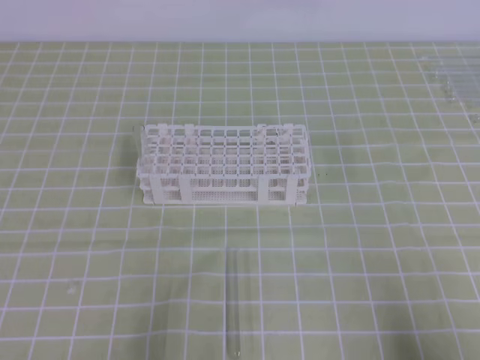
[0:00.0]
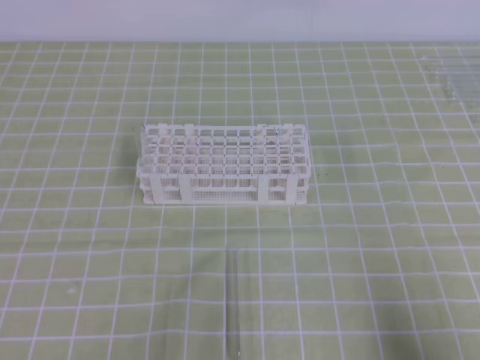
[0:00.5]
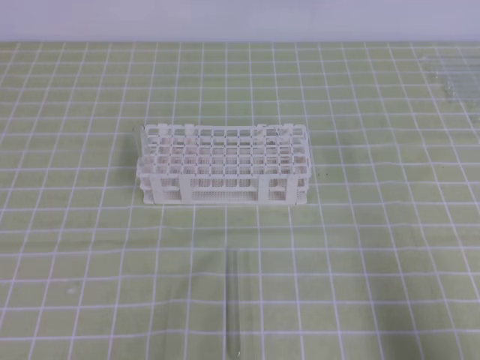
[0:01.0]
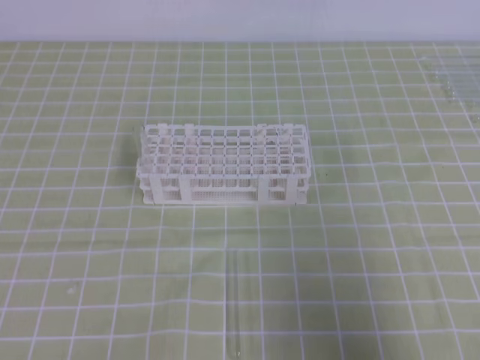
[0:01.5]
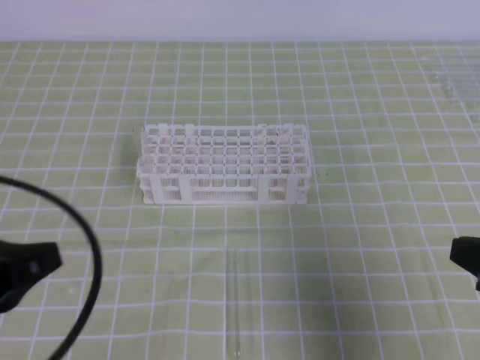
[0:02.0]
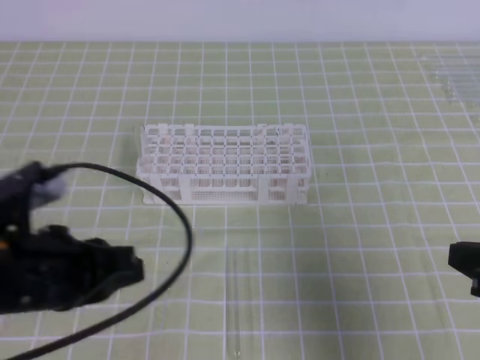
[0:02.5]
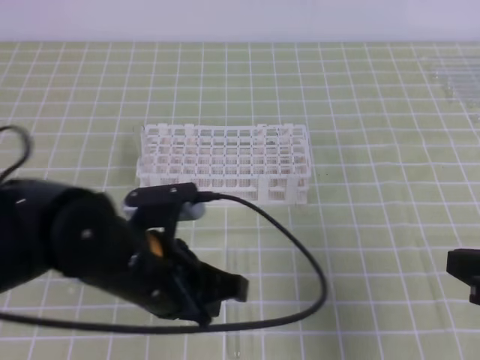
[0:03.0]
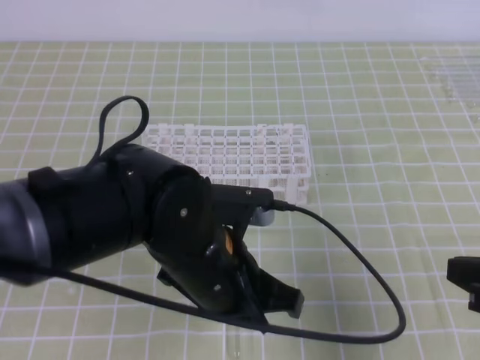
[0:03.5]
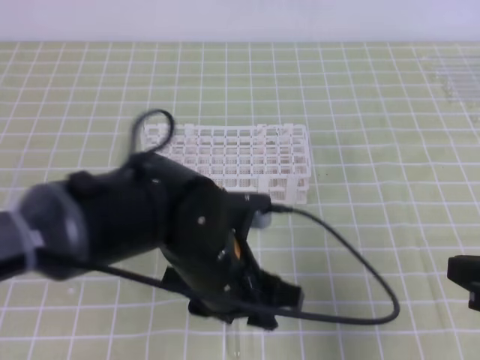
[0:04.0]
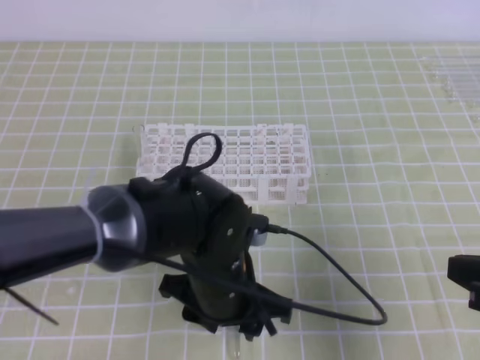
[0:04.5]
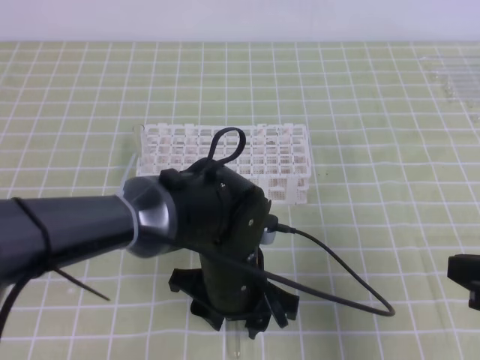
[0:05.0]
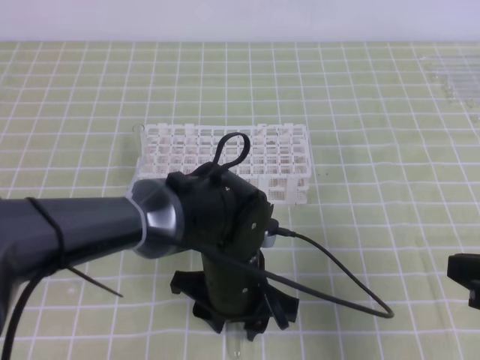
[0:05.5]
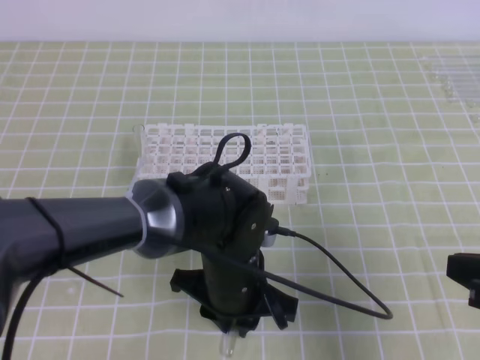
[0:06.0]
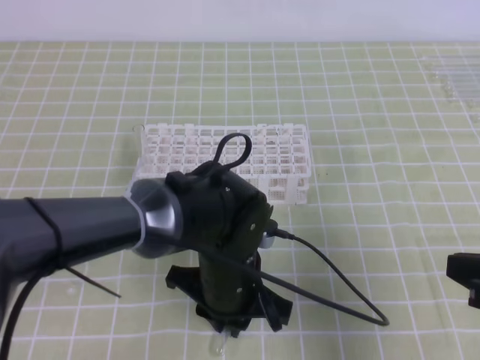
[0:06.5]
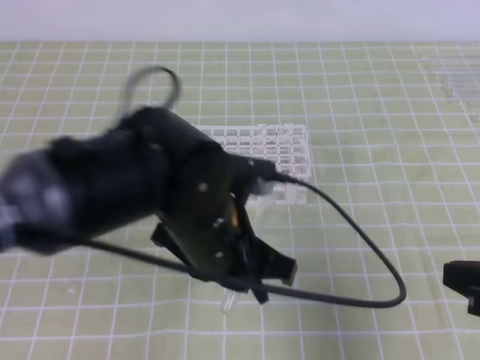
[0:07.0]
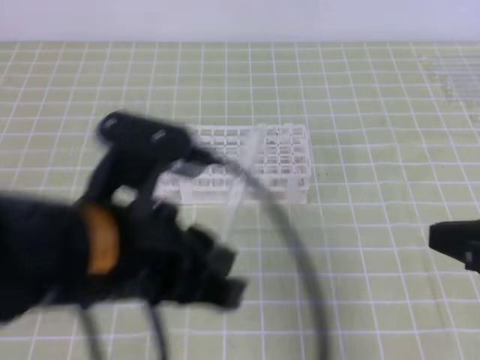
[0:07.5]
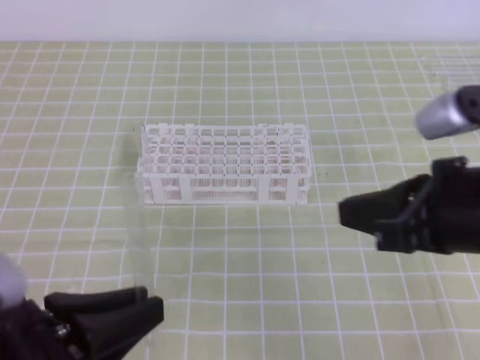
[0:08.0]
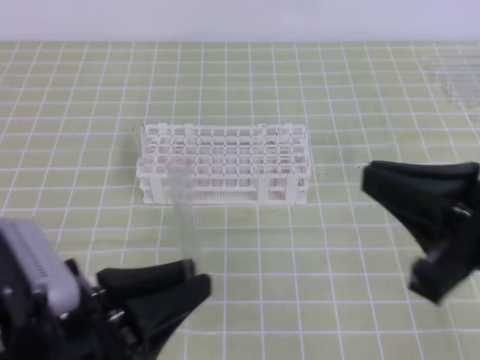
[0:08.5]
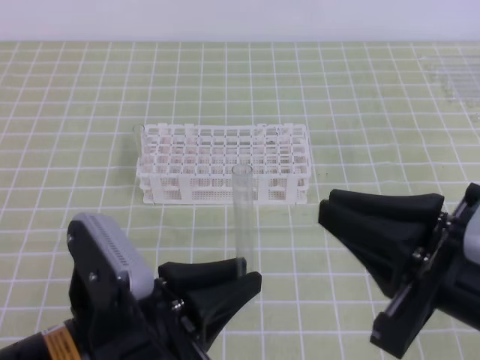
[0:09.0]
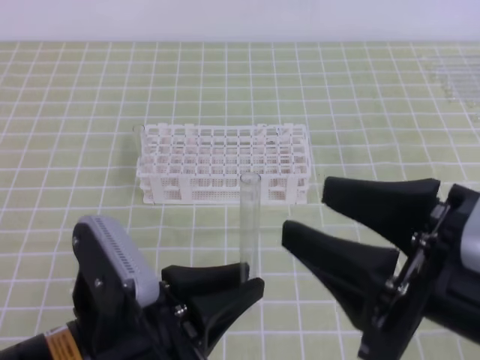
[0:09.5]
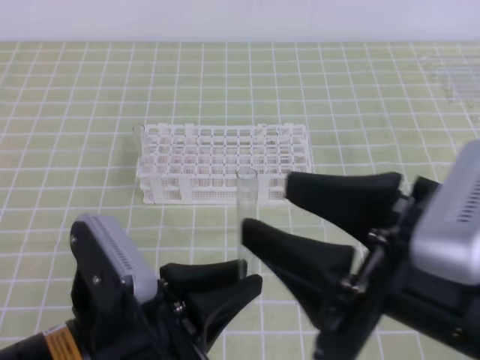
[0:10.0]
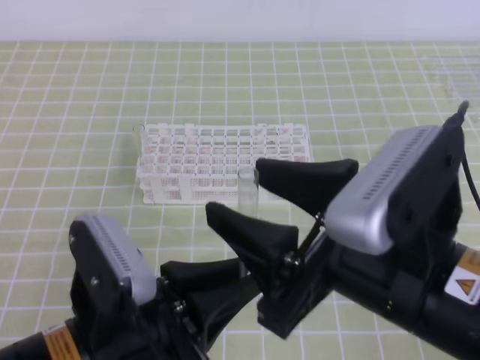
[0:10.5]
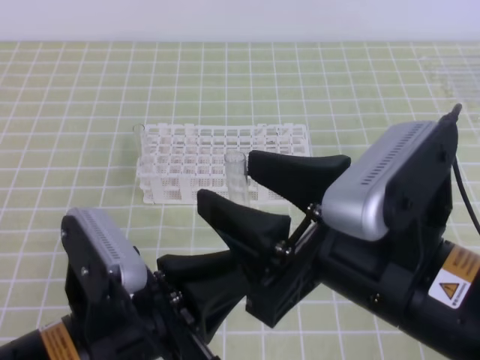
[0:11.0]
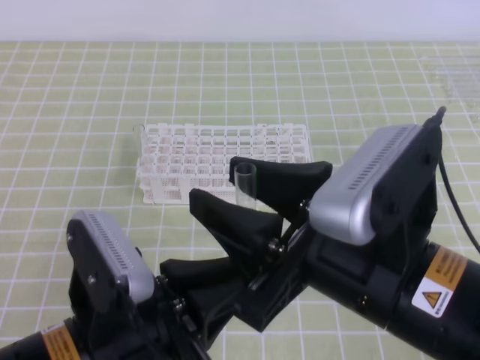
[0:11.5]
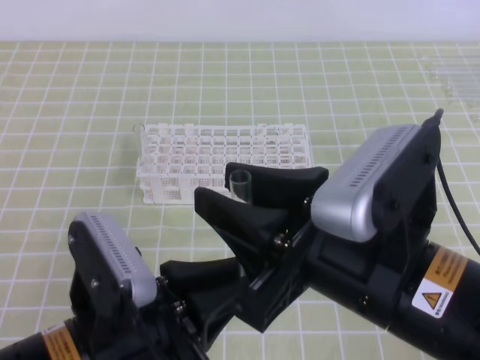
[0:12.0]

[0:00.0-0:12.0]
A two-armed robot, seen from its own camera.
0:00.0 to 0:02.0: The grippers both shift upward and forward by approximately 10 cm.
0:02.0 to 0:04.0: The left gripper travels to the right by some 20 cm, and opens up.
0:04.0 to 0:06.0: The left gripper goes roughly 5 cm downward, and closes.
0:06.0 to 0:08.0: The right gripper is displaced to the left and upward by approximately 10 cm, while the left gripper heads to the left, backward and upward, covering some 25 cm, and closes.
0:08.0 to 0:10.0: The right gripper heads backward and to the left, covering approximately 10 cm, and opens, while the left gripper goes approximately 5 cm to the right.
0:10.0 to 0:12.0: The right gripper closes.

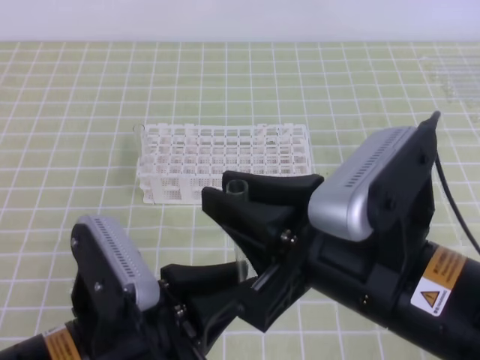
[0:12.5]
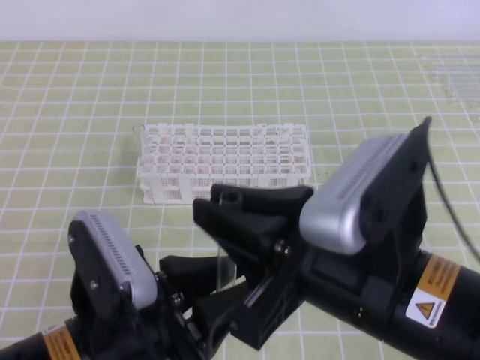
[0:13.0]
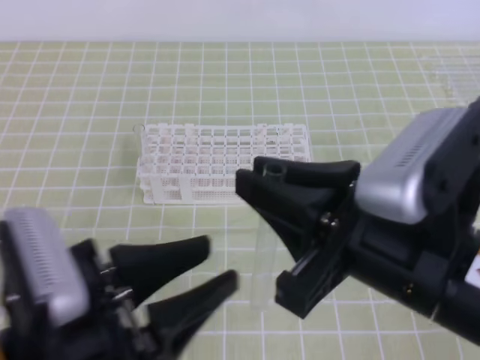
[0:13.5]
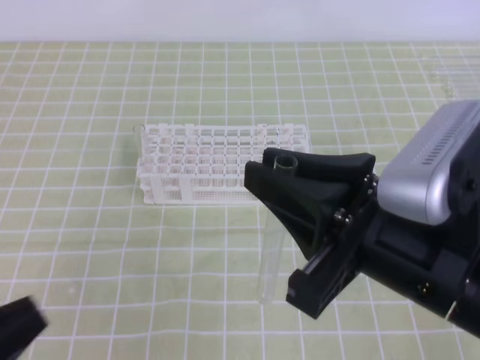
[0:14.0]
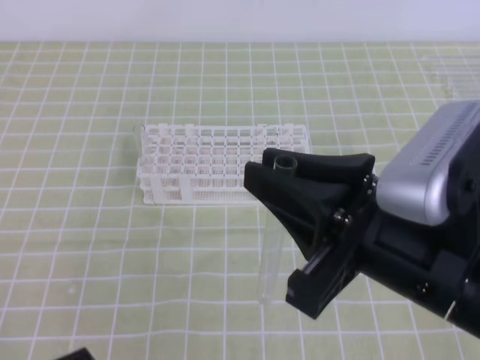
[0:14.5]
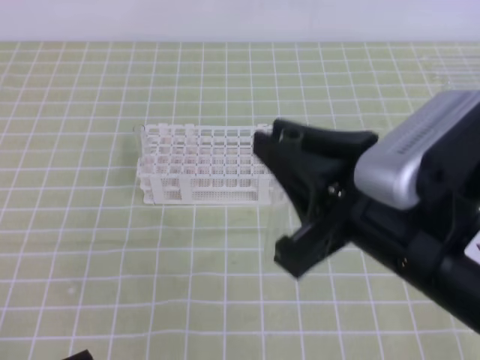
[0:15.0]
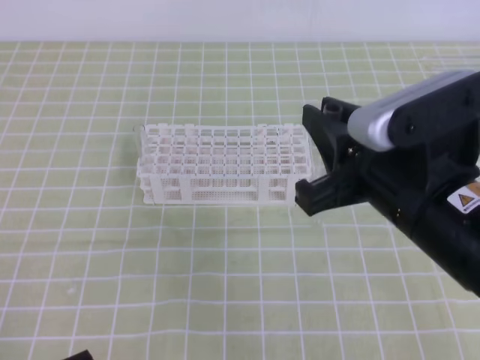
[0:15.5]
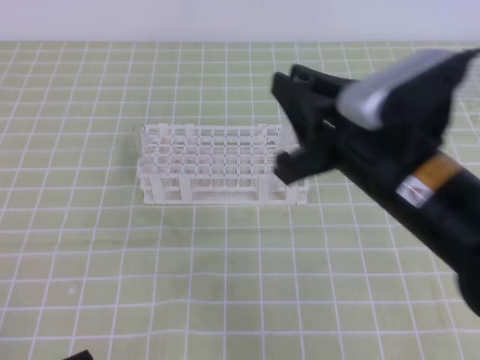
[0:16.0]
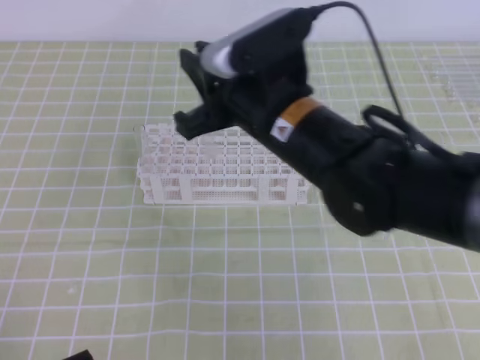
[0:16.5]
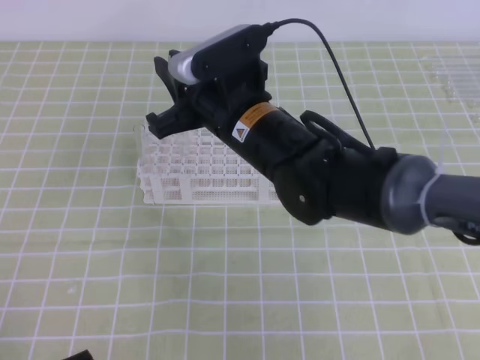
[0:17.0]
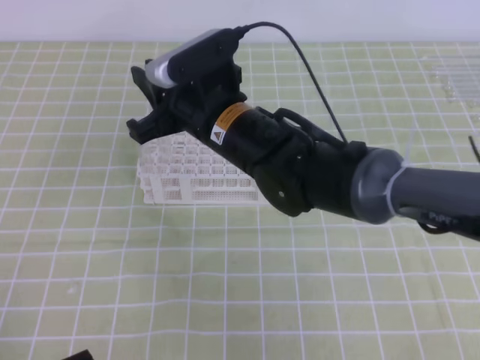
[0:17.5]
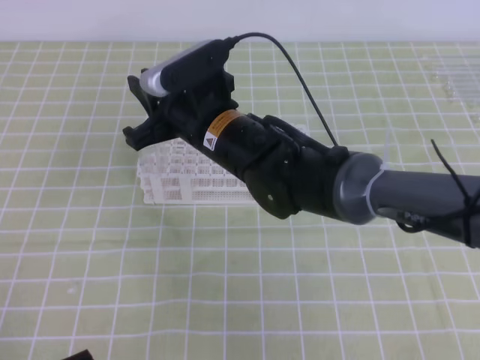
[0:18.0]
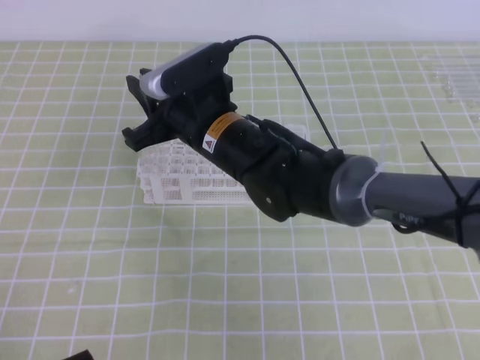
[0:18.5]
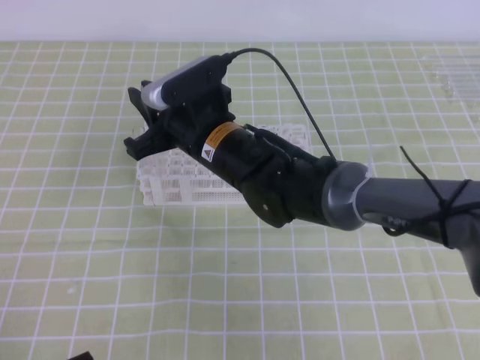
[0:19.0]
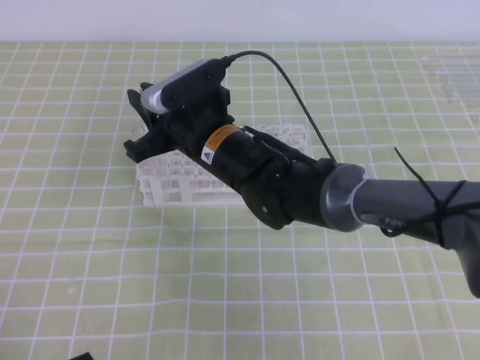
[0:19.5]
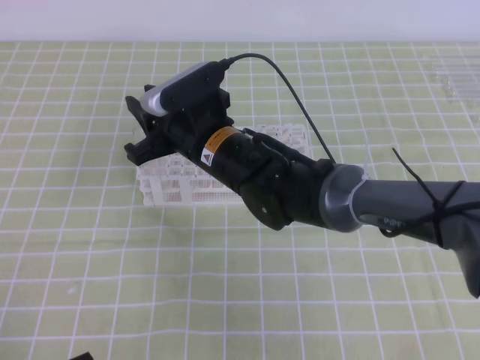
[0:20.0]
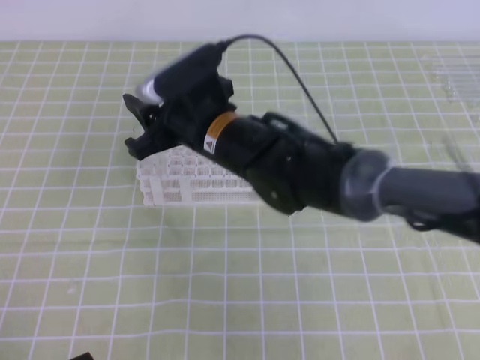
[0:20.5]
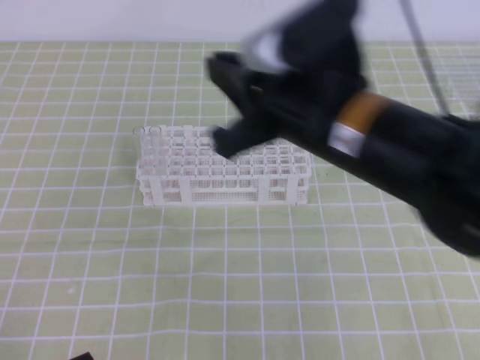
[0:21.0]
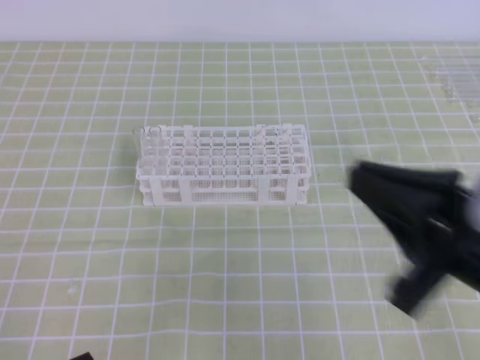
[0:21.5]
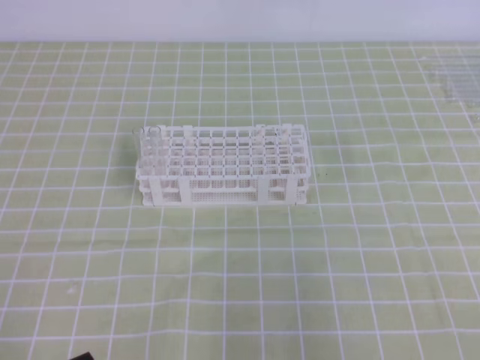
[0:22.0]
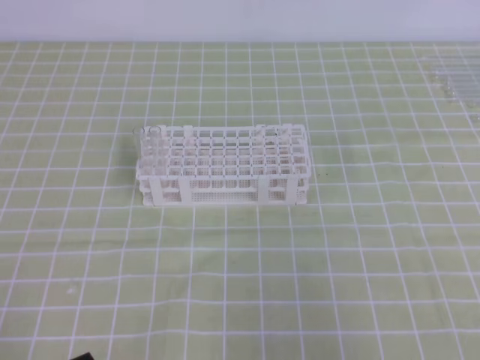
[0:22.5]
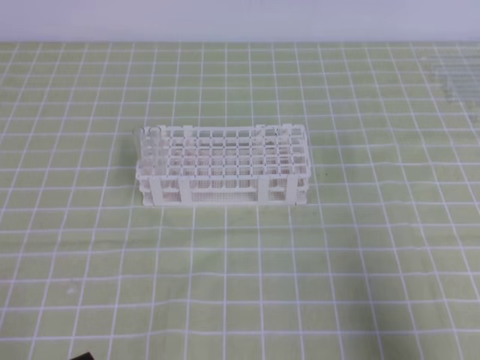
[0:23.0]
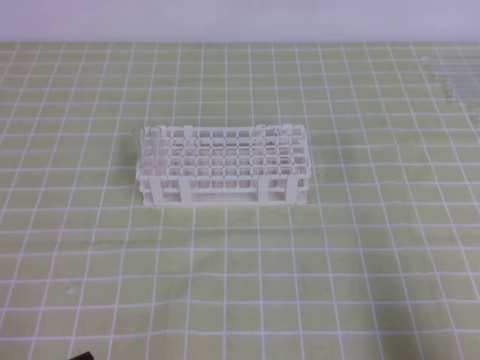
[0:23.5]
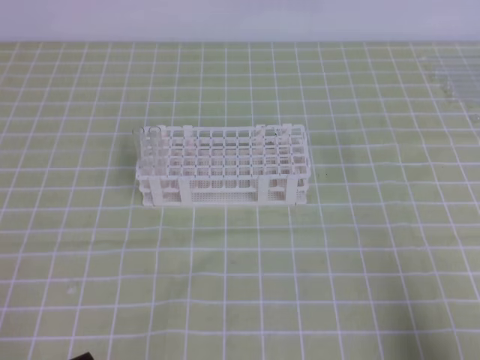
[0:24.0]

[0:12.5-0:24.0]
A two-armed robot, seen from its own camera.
0:12.5 to 0:14.5: The left gripper travels to the left and backward by about 15 cm, and opens and closes again.
0:14.5 to 0:16.5: The right gripper shifts some 20 cm forward and to the left.
0:16.5 to 0:18.5: The right gripper goes some 10 cm to the left, downward and forward.
0:18.5 to 0:20.0: There are only small adjustments of the grippers.
0:20.0 to 0:22.0: The right gripper shifts some 40 cm to the right and backward, and closes its fingers.
0:22.0 to 0:24.0: The right gripper travels downward by some 10 cm.
